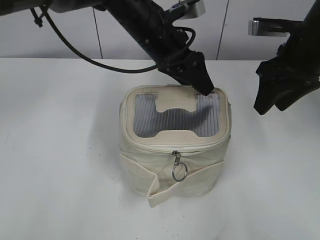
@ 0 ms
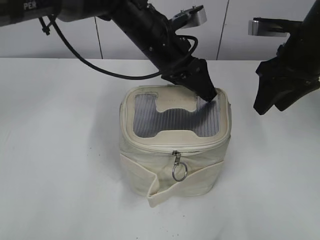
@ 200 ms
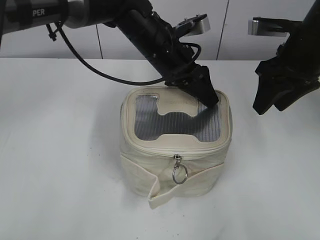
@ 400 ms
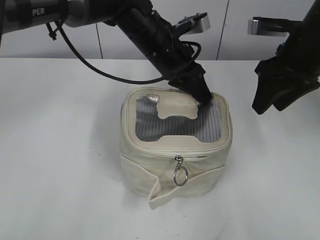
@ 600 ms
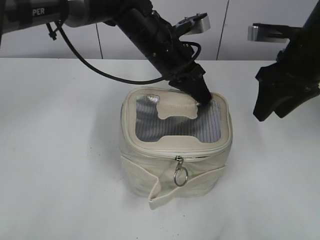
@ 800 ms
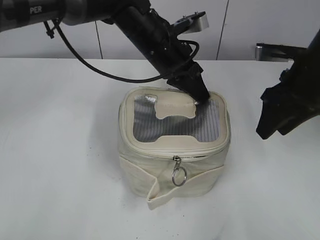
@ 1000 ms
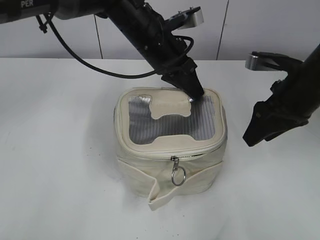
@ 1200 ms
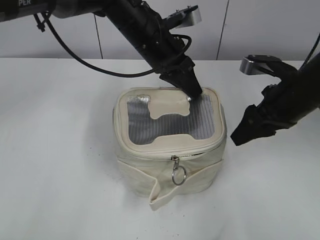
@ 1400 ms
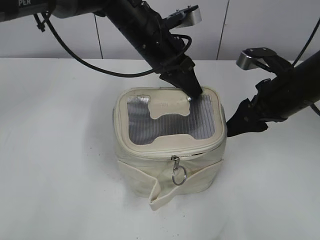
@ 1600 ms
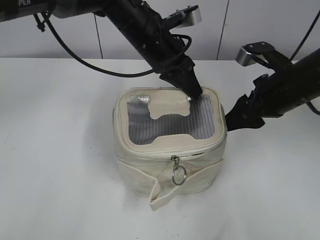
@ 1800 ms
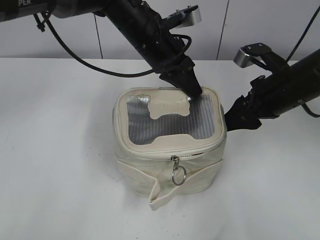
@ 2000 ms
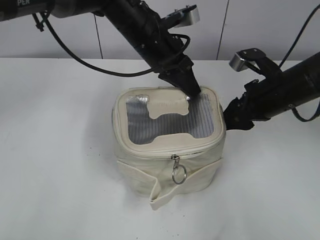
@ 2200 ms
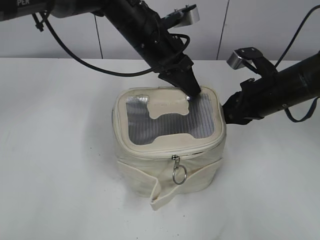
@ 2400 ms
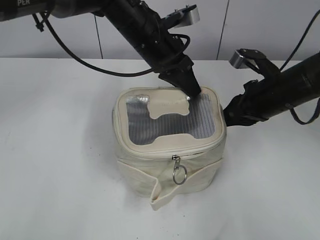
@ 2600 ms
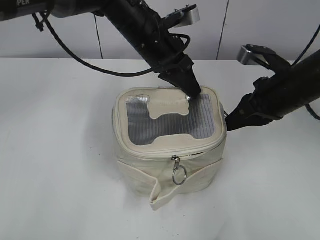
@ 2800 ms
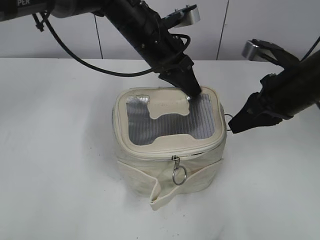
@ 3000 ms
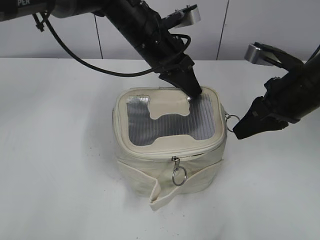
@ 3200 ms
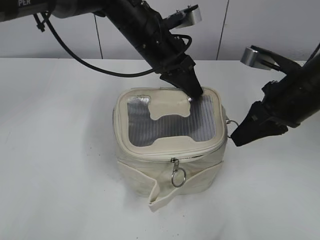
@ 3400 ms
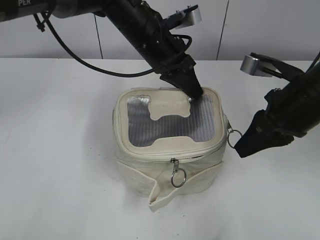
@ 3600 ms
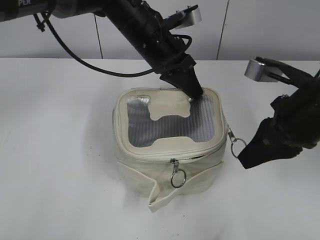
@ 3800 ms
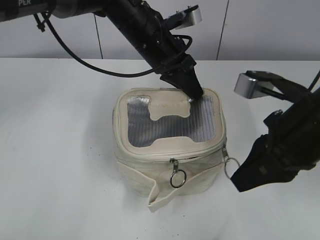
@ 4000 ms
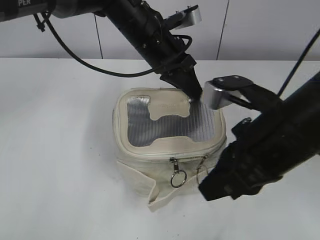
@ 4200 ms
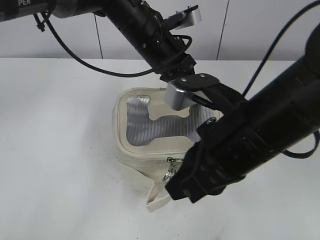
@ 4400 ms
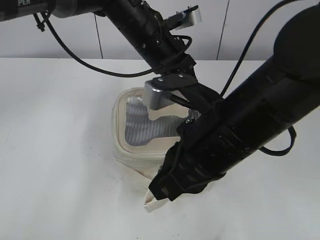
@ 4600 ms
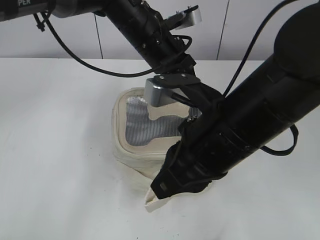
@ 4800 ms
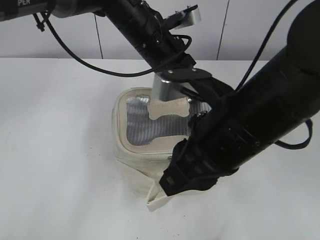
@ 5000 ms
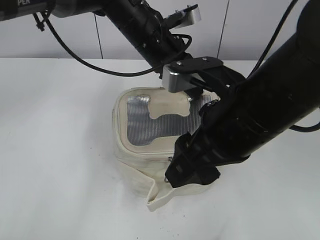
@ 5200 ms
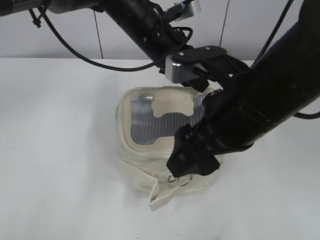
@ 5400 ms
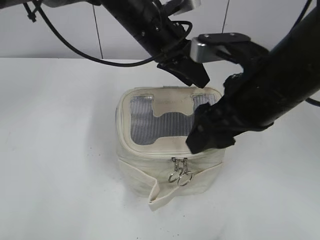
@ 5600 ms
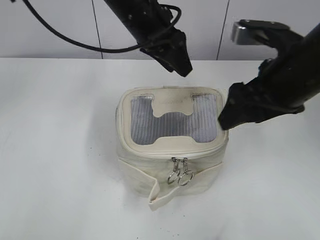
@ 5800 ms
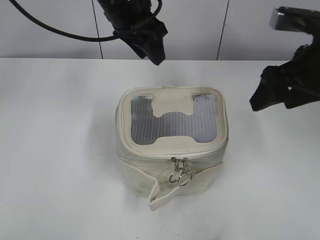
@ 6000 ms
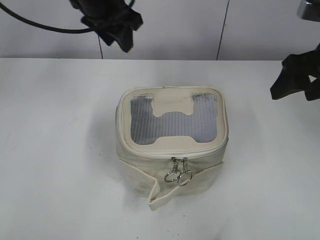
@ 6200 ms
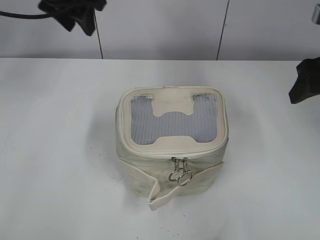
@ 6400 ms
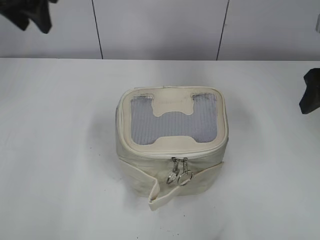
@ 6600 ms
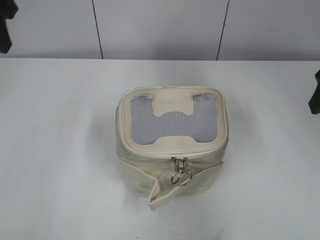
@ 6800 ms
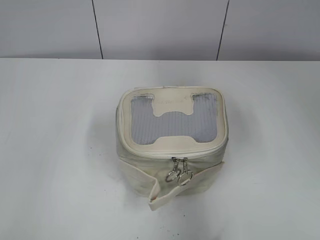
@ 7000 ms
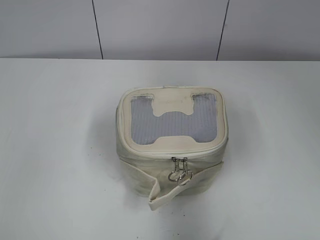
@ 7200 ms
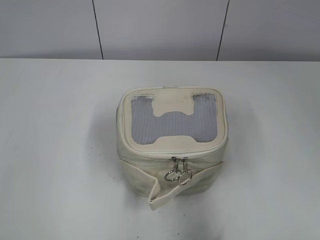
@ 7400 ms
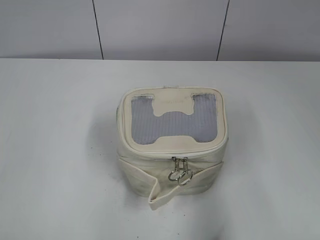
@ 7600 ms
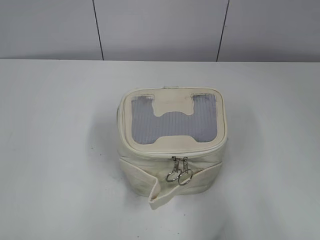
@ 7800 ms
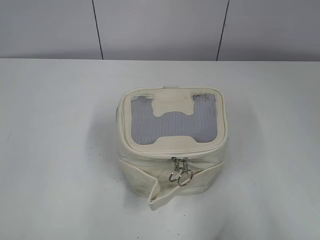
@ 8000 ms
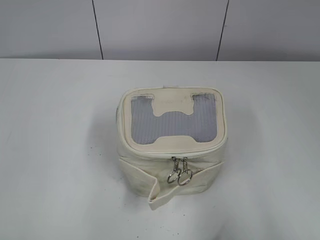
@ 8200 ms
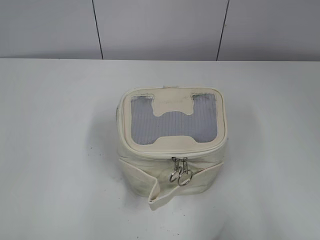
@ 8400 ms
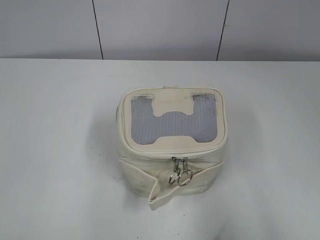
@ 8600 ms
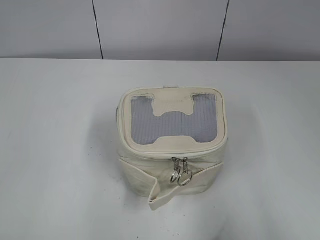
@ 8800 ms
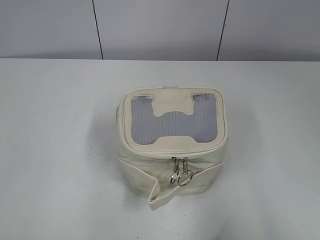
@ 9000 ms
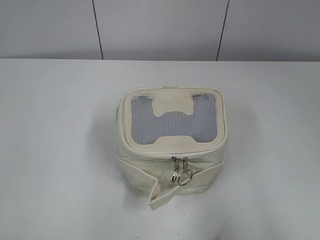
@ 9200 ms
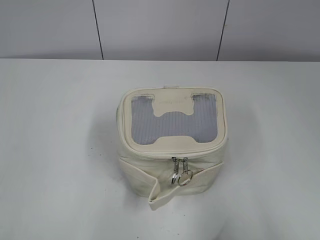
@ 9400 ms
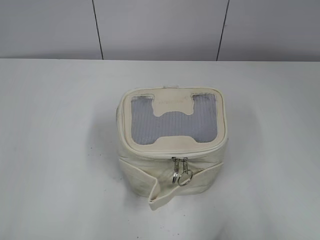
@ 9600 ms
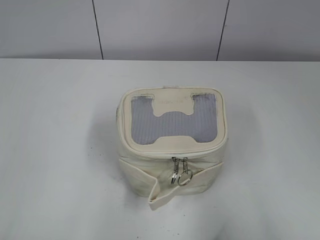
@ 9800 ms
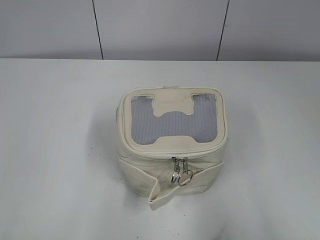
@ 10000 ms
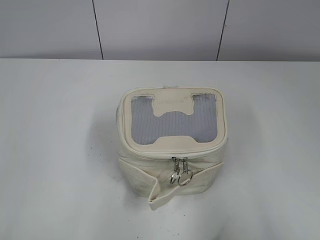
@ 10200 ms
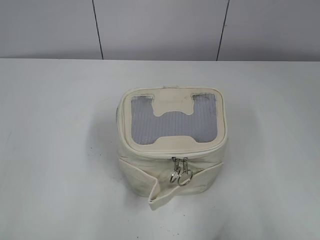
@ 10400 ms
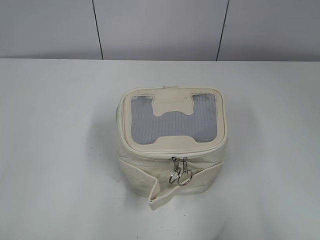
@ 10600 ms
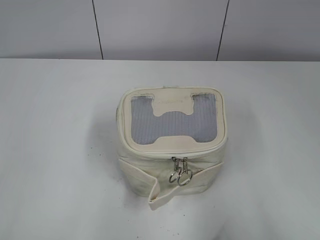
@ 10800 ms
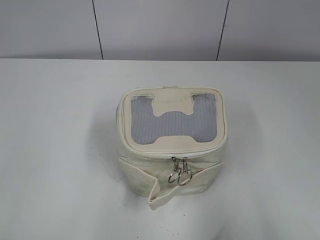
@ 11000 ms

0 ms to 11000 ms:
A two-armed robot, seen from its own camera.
Step, 0 ms to 4800 ms: Zip up the bag with your right hand.
Step, 5000 ms to 5600 ms: Hold the bag with your left hand.
0 ms to 1600 ms: The left gripper closes. Meanwhile the right gripper heads downward, covering some 5 cm.
1600 ms to 3200 ms: The right gripper closes its fingers.
3200 ms to 4800 ms: The right gripper moves to the left and backward, roughly 15 cm.
4800 ms to 6200 ms: The left gripper goes roughly 10 cm to the left and upward, and opens up. The right gripper goes some 20 cm to the right and forward, and opens.
6200 ms to 7800 ms: The left gripper heads backward and to the left, covering approximately 50 cm. The right gripper is displaced backward by approximately 25 cm.
9400 ms to 11000 ms: The two grippers keep their place.

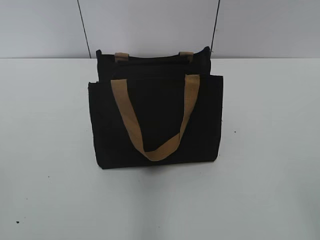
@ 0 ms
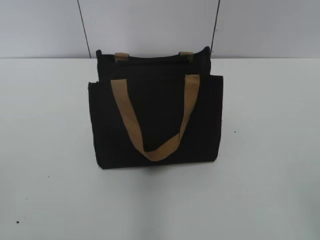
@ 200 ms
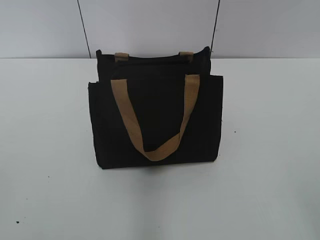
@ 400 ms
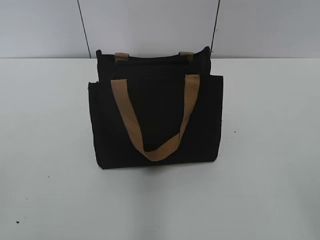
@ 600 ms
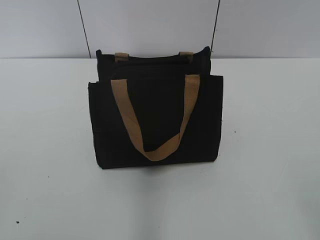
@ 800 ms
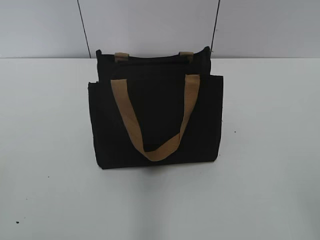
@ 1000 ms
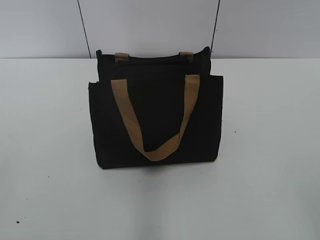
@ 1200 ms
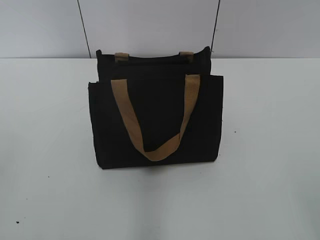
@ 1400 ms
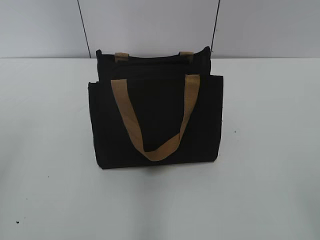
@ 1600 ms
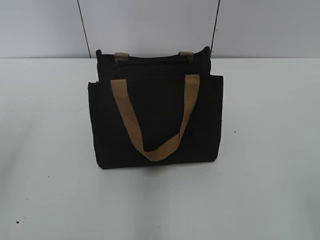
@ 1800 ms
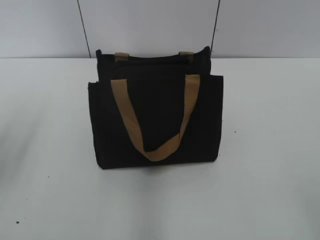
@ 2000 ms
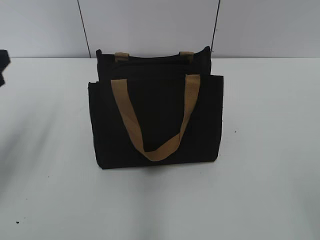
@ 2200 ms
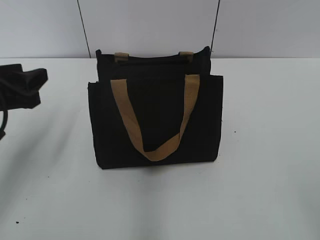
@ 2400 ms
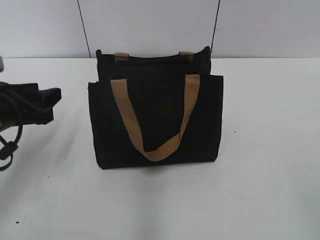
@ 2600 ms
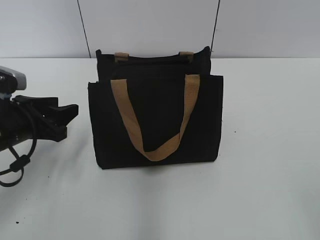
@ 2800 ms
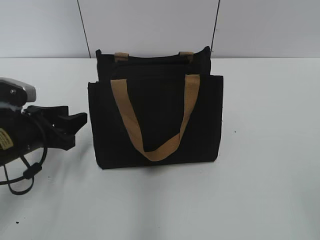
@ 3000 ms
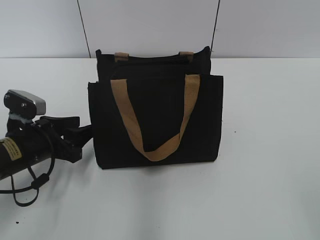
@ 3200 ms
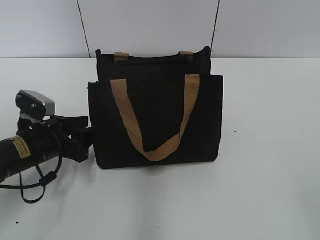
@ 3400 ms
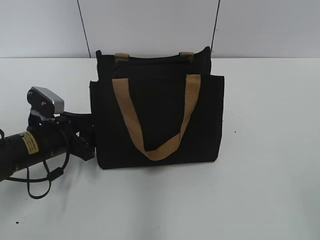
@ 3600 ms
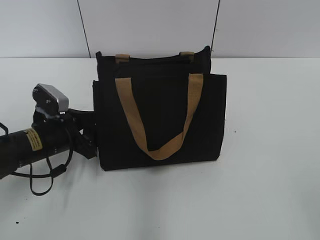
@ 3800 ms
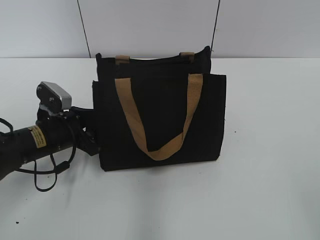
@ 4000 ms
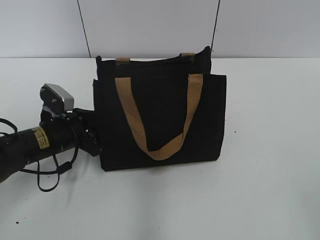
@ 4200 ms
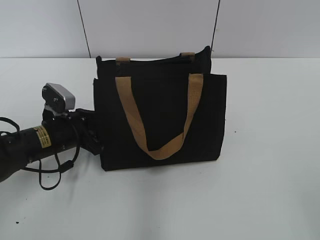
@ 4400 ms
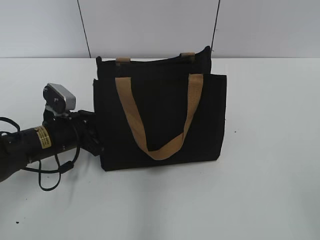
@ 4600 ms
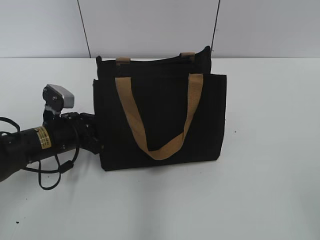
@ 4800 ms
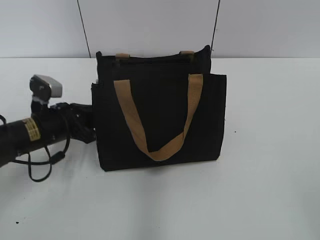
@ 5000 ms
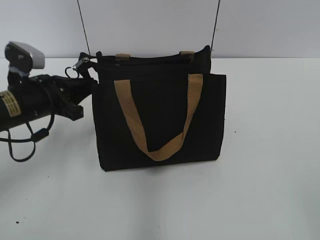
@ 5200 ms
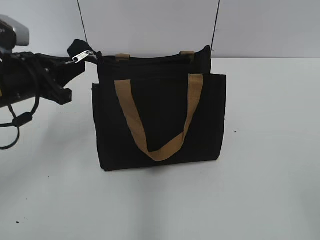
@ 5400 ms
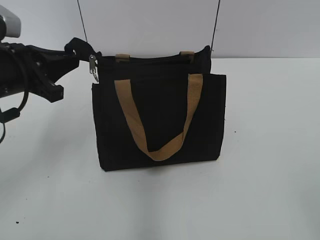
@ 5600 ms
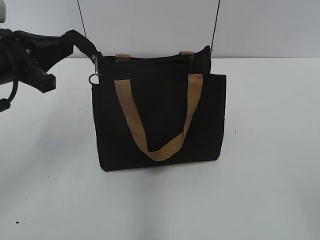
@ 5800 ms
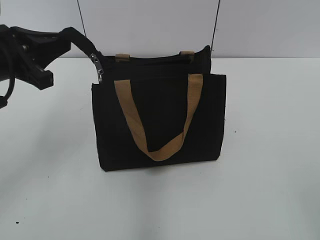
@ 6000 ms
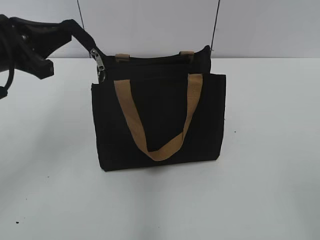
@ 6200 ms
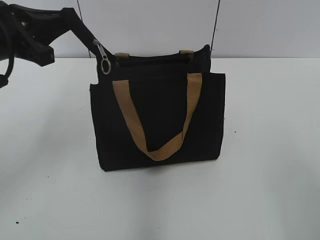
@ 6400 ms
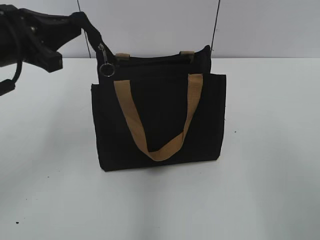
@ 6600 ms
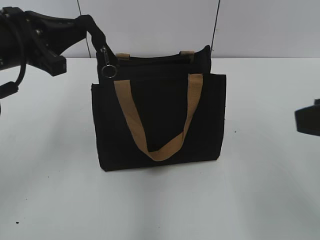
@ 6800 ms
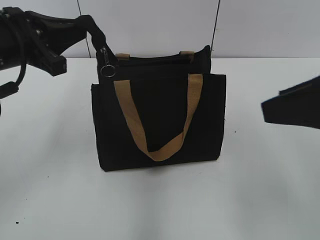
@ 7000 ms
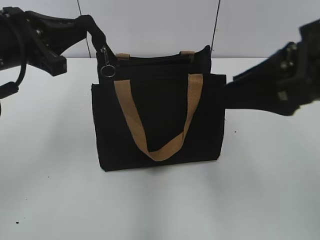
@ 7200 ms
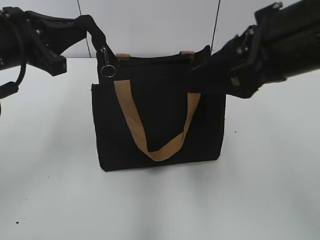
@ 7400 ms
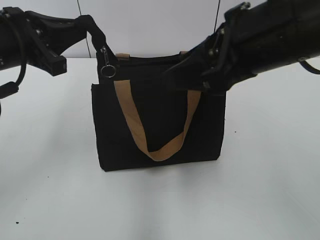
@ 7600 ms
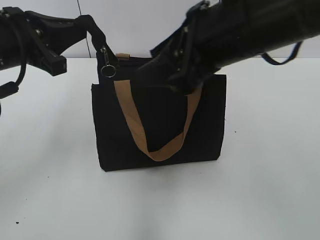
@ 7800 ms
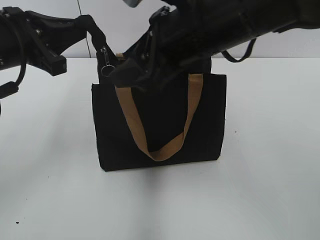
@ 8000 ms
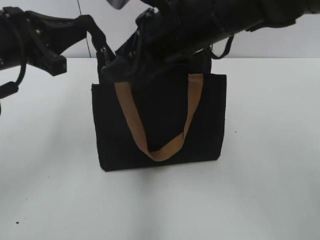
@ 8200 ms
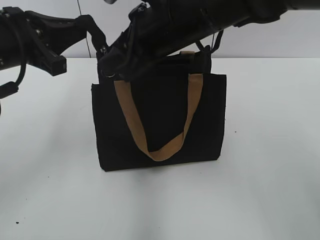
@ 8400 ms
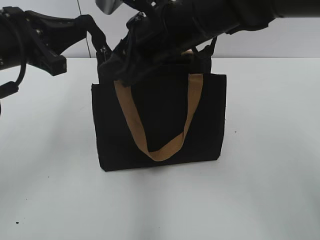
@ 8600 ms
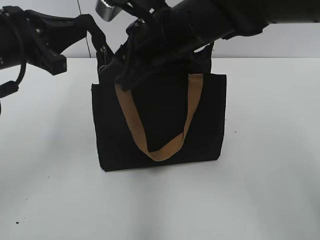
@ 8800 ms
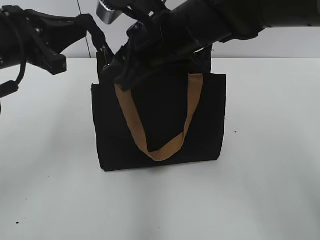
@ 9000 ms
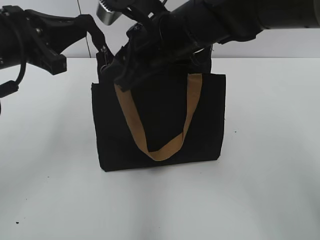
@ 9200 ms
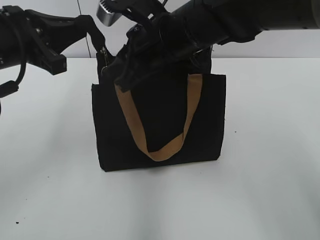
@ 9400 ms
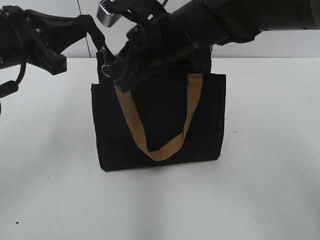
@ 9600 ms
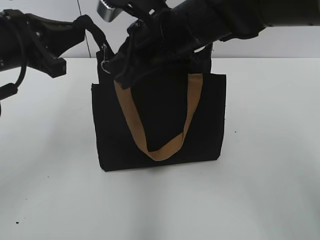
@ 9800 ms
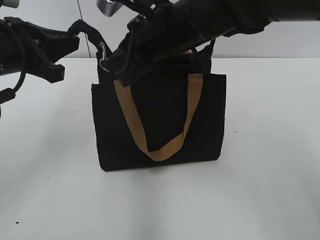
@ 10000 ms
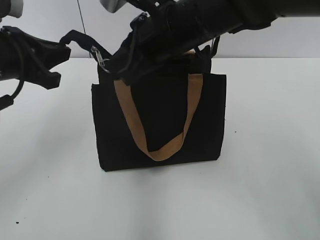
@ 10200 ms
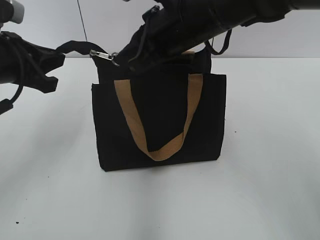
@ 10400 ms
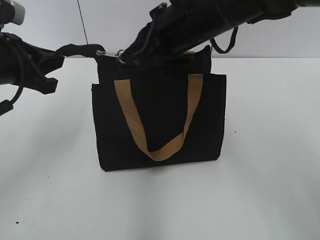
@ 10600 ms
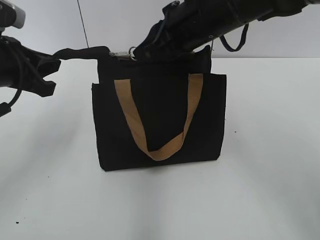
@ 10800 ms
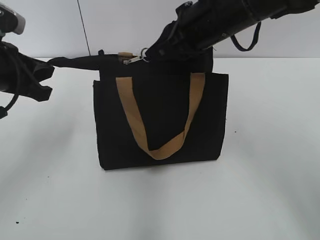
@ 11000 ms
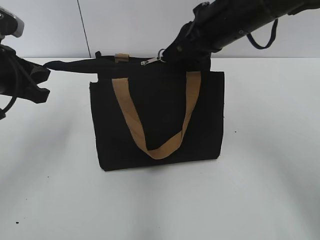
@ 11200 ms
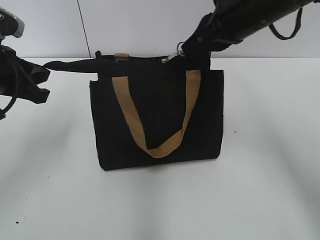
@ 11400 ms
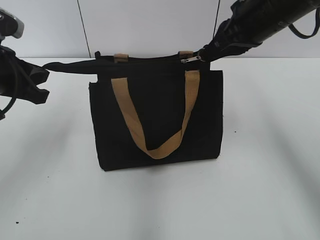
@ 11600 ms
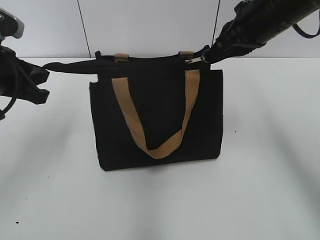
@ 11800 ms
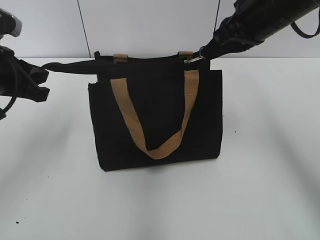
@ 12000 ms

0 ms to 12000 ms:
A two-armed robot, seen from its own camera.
1600 ms to 3000 ms: The left gripper heads downward, forward and to the right, covering about 25 cm.
3000 ms to 4400 ms: The left gripper moves approximately 10 cm.
4400 ms to 6000 ms: The left gripper moves upward, roughly 20 cm, and closes.
6000 ms to 7600 ms: The right gripper is displaced forward and to the left by about 30 cm.
7600 ms to 9000 ms: The right gripper goes approximately 15 cm to the left, forward and downward.
9000 ms to 10400 ms: The right gripper closes up.
10400 ms to 12000 ms: The right gripper is displaced to the right by roughly 10 cm.
